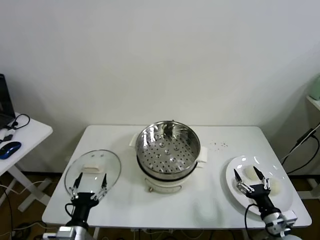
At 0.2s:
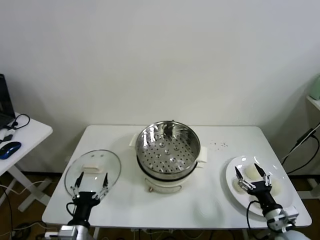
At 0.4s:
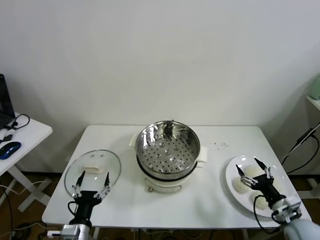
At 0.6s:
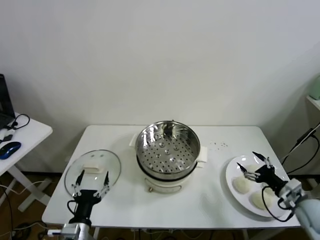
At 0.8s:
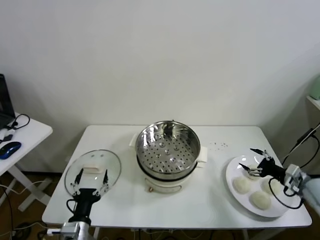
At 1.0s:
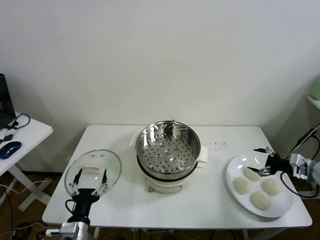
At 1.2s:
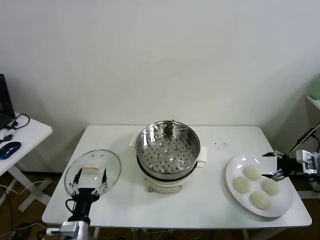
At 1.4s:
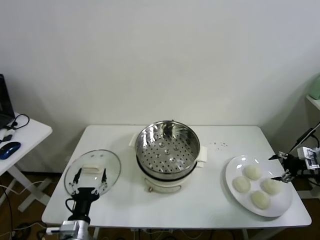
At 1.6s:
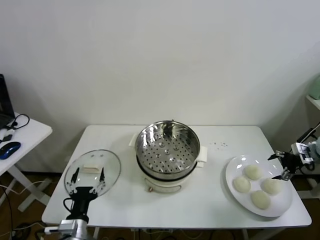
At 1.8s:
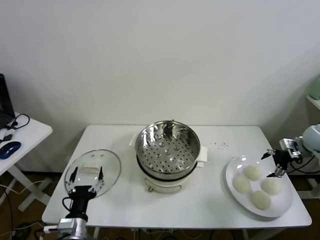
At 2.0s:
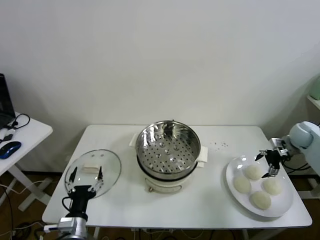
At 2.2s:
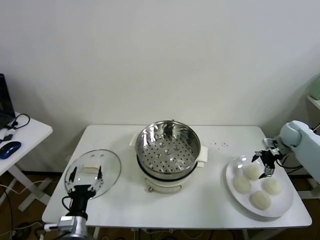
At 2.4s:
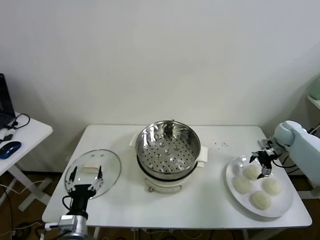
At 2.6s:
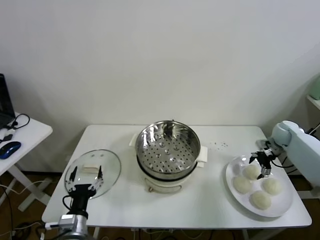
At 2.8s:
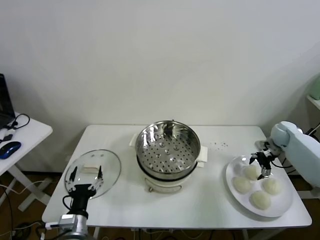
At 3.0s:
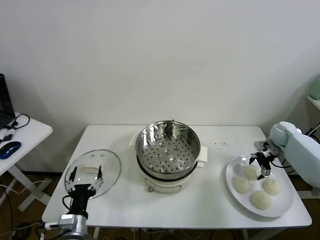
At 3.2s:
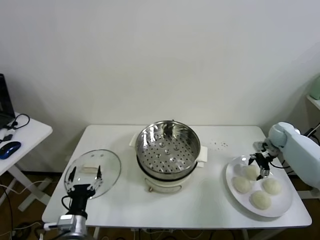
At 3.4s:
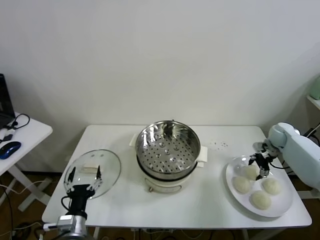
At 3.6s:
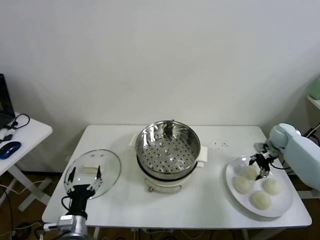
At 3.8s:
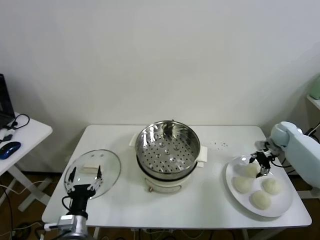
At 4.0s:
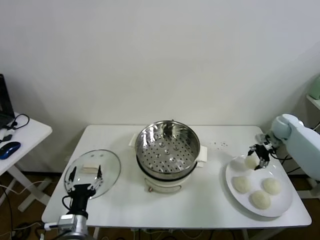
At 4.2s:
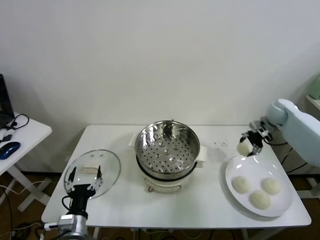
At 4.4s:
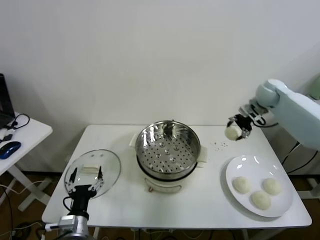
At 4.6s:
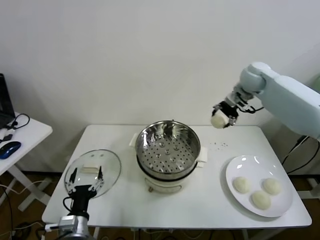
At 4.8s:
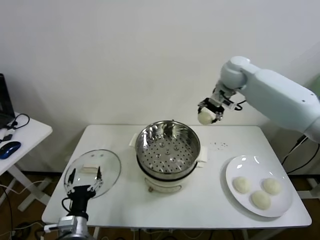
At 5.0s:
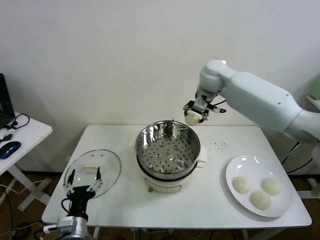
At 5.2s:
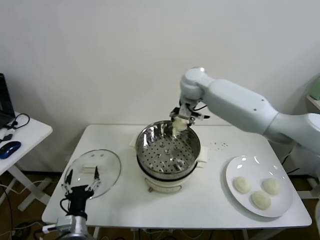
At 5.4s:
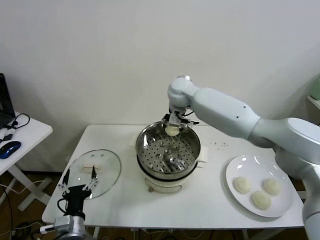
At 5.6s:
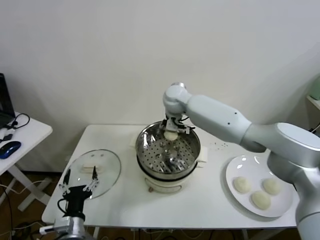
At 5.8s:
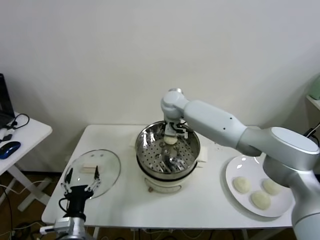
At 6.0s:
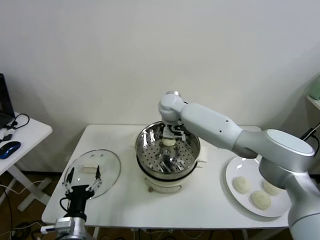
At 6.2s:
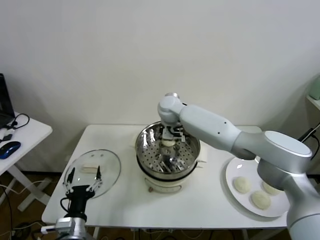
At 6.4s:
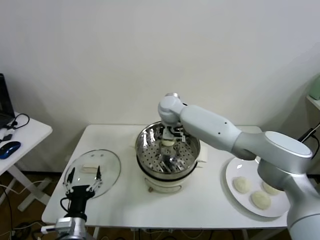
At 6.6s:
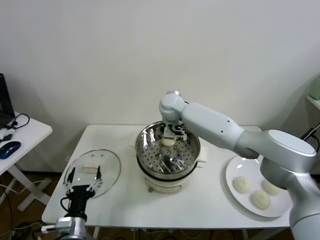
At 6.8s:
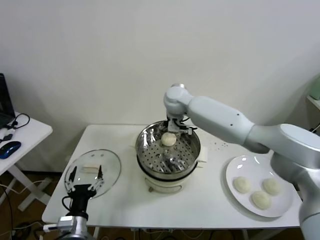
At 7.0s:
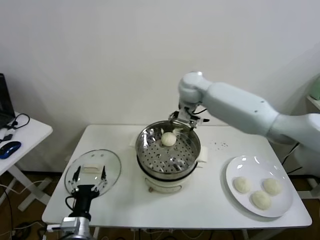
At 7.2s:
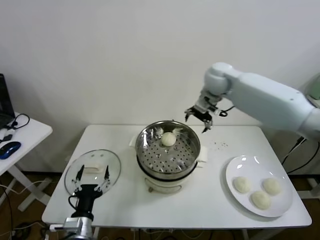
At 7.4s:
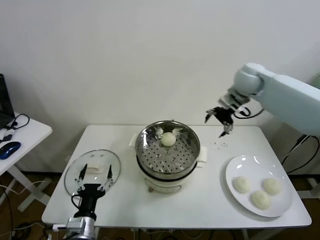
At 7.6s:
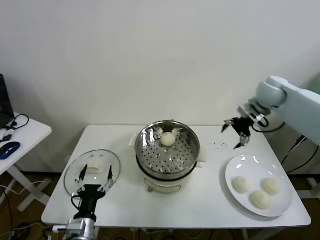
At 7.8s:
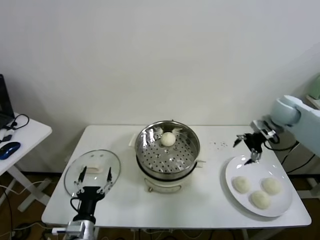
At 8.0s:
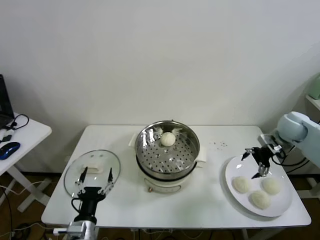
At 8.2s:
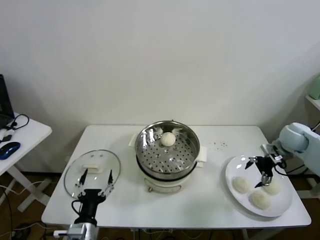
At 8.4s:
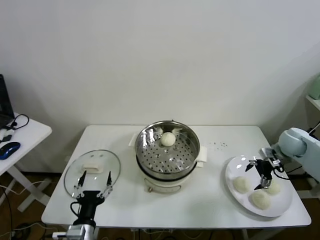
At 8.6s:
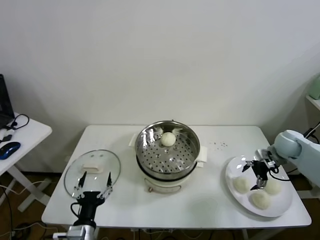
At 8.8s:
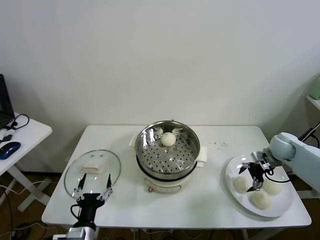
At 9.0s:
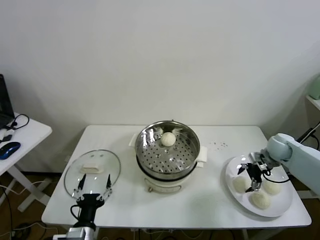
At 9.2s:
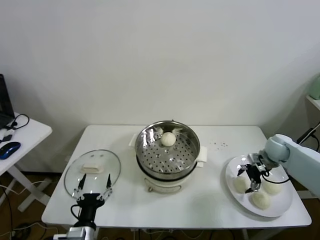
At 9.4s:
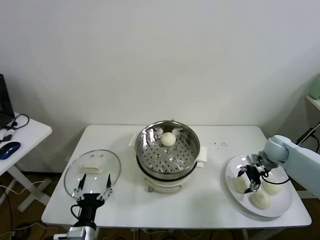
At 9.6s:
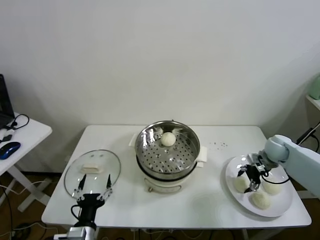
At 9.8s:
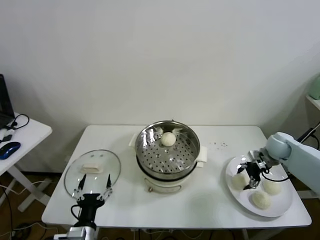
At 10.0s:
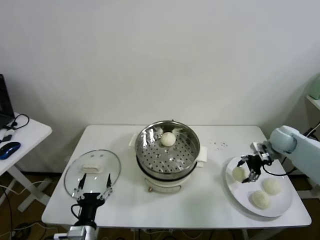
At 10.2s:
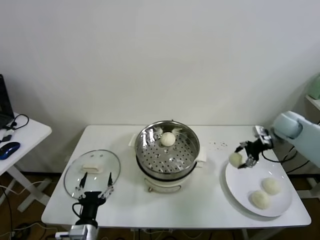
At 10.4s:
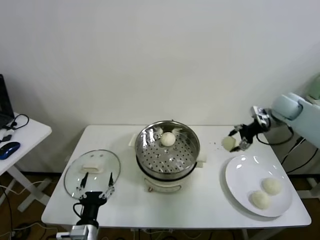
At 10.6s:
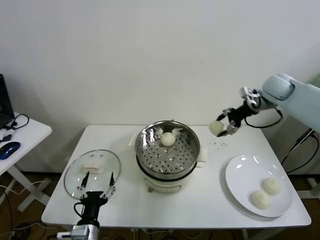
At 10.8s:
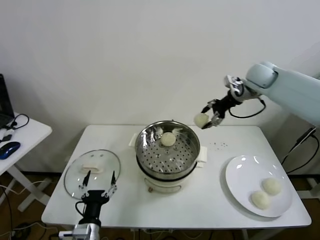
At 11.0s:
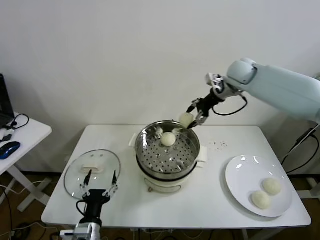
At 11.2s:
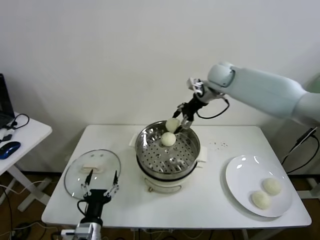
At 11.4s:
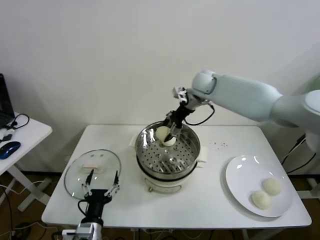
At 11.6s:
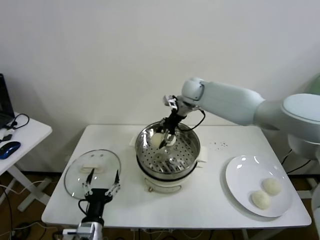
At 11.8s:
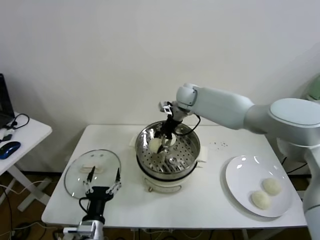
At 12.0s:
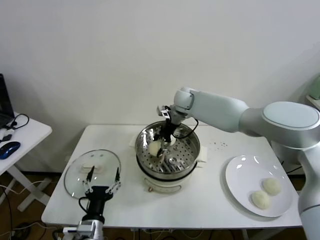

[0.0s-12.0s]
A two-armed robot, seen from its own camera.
Task of the whole recording: take steamed baozi put them in steamer.
Step, 0.0s to 3.4s: Grasp the baozi in the plate with right gripper.
Step, 3.6s to 6.4s: Place the baozi on the steamer with right gripper.
Step, 6.8s to 9.4s: Grasp the baozi in the plate with right gripper.
1.6s to 3.0s: The right gripper heads forward, to the left and downward, covering about 15 cm.
3.0s to 4.4s: The right gripper heads upward and to the left, covering roughly 25 cm, and closes up.
4.4s to 6.0s: The right gripper moves to the left, approximately 30 cm.
6.0s to 7.6s: The right gripper shifts roughly 35 cm to the right, and opens its fingers.
7.6s to 9.0s: The right gripper moves downward, about 20 cm.
9.0s to 10.4s: The right gripper moves upward and forward, about 20 cm, and closes up.
10.4s to 12.0s: The right gripper is displaced to the left by approximately 35 cm.

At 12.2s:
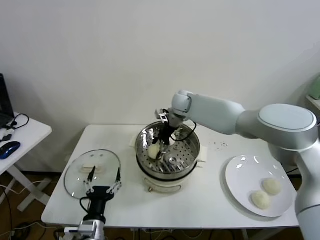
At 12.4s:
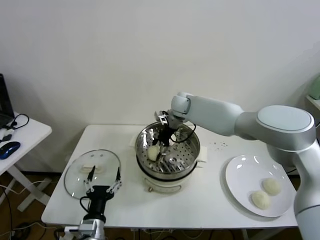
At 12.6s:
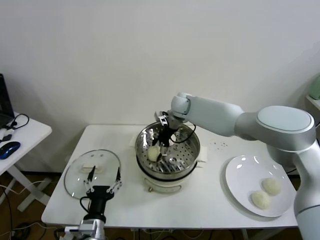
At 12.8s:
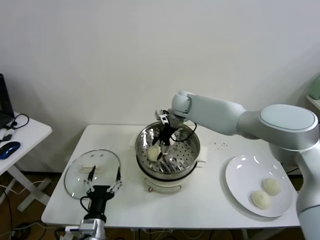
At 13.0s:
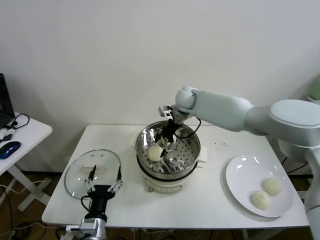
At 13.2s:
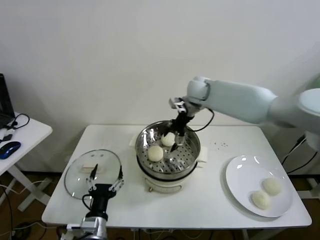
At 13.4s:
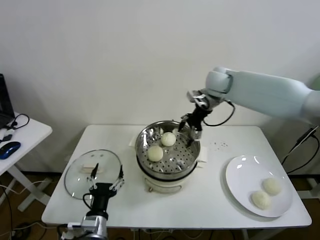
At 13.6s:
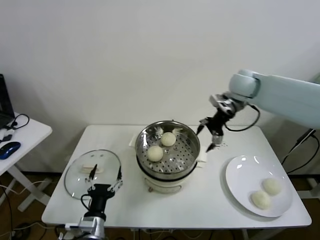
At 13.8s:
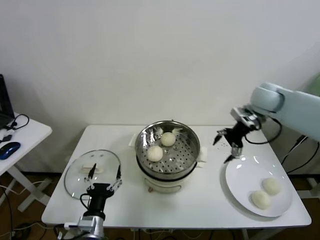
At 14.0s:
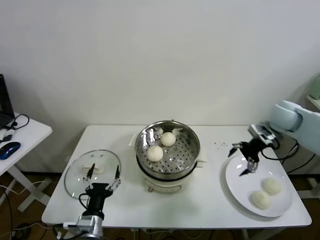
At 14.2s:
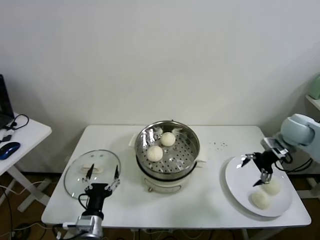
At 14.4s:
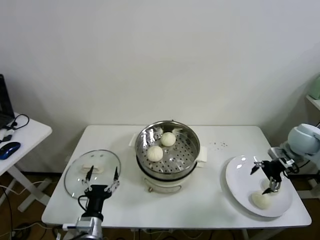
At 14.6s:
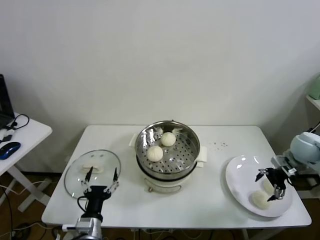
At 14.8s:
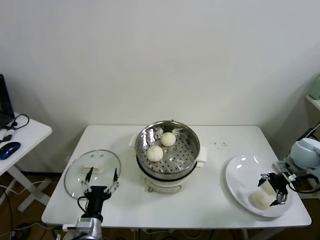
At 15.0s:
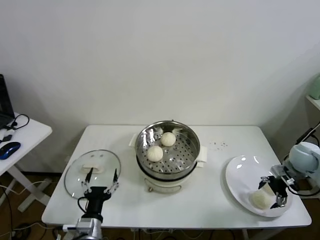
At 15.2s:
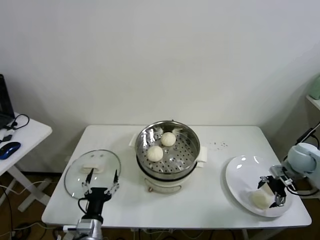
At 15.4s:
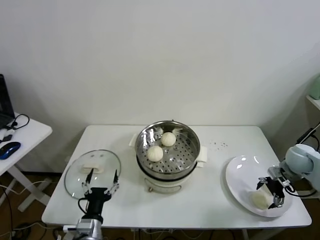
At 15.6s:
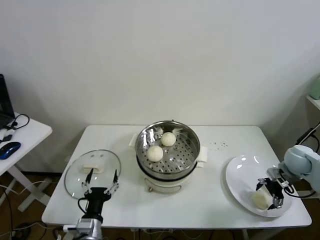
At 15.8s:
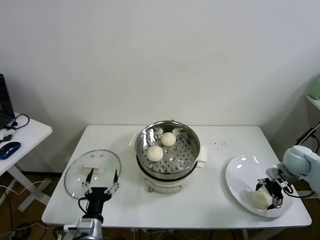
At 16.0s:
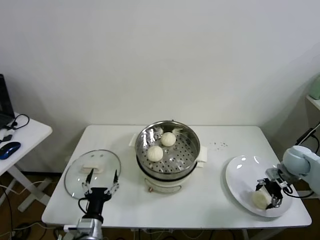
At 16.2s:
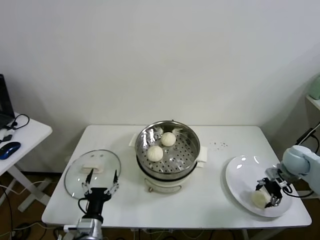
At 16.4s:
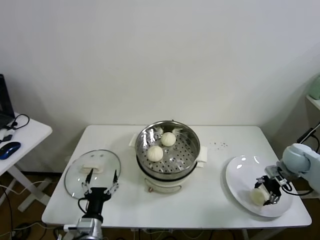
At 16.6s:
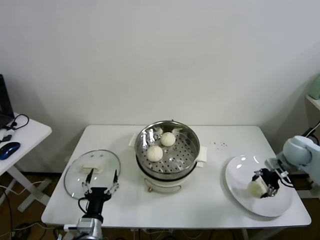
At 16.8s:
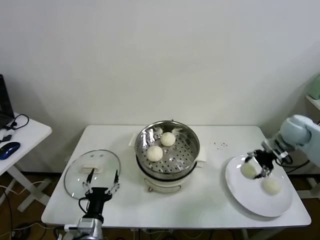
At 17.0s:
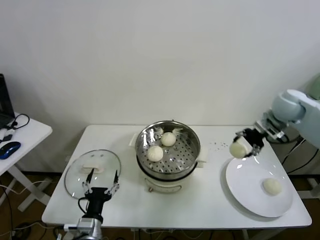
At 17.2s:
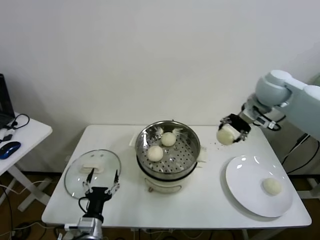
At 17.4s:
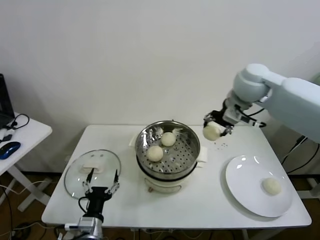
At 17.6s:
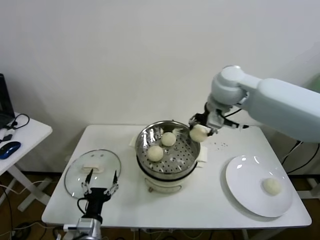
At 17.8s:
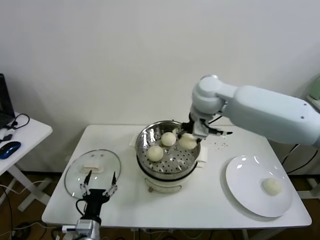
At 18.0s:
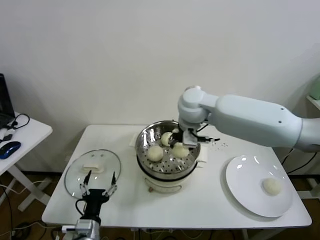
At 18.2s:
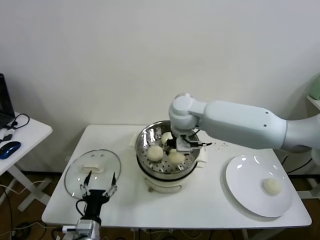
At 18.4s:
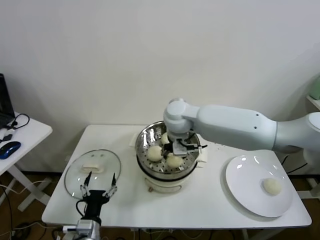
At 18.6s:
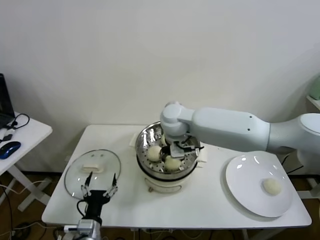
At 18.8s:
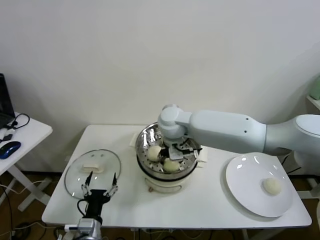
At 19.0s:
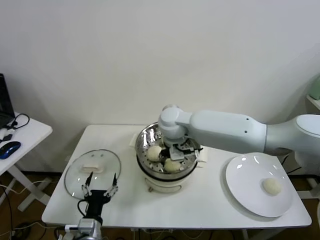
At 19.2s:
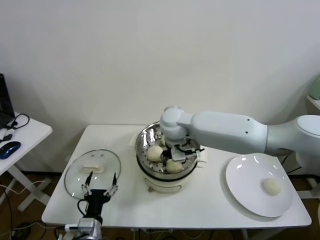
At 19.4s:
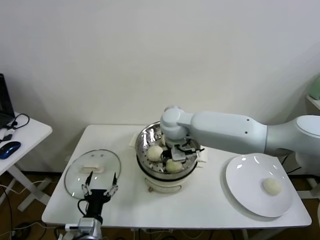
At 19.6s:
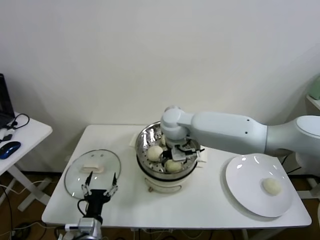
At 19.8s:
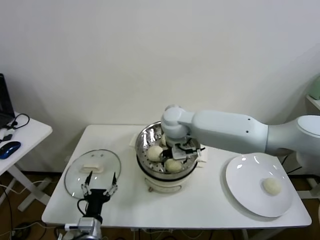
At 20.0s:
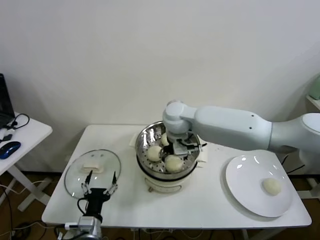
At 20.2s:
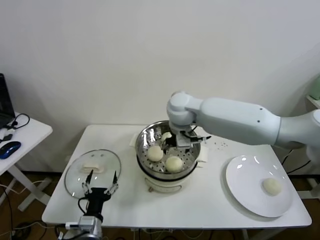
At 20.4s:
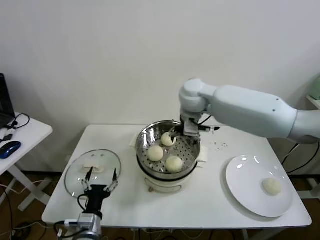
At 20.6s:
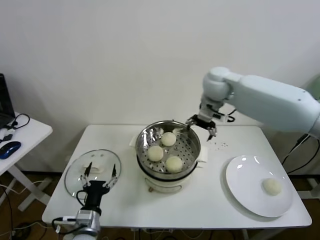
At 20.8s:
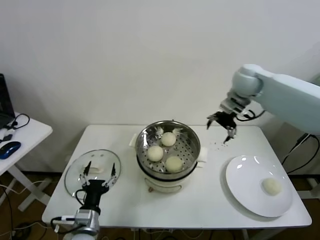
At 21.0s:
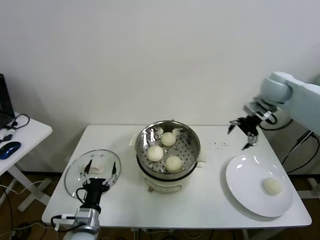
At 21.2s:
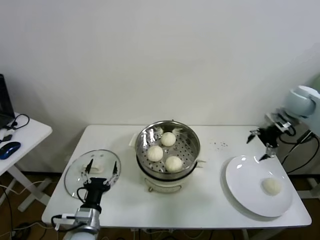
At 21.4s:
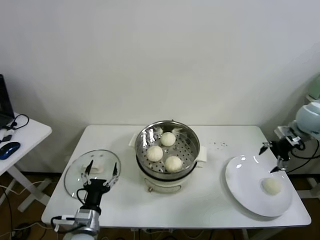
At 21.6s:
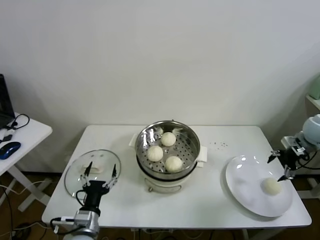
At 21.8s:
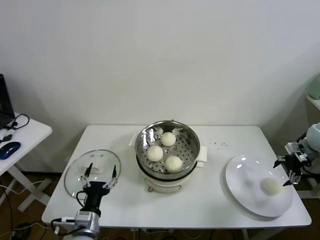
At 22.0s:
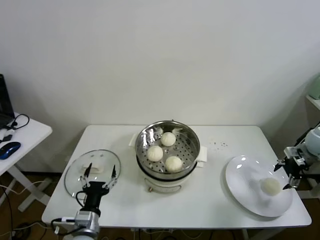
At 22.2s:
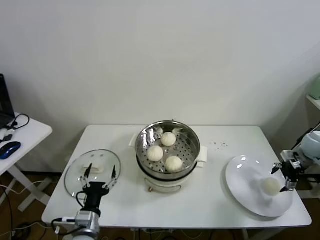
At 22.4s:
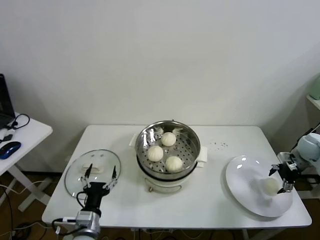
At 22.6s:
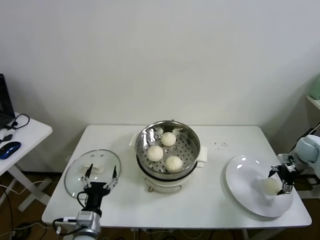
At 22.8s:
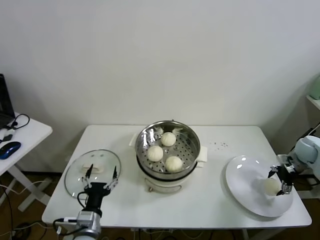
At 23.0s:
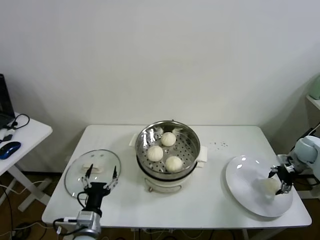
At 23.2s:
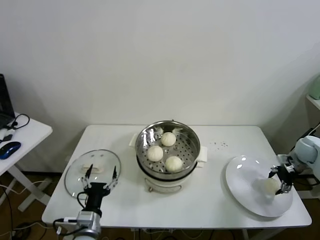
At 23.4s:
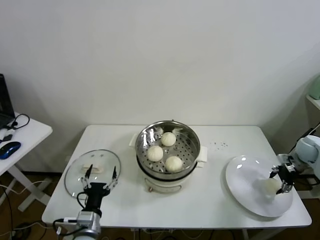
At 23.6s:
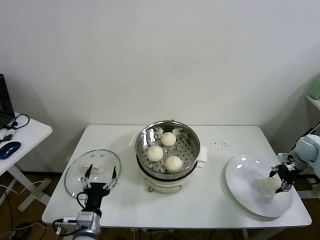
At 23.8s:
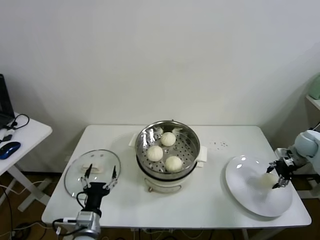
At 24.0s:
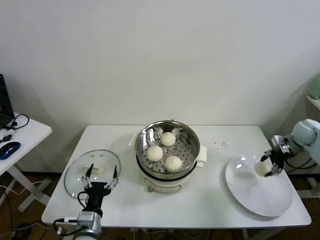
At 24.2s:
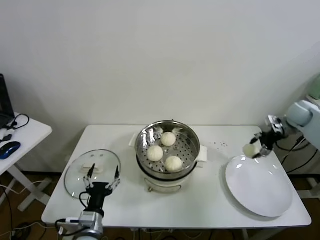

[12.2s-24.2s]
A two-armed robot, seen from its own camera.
Task of the whole recording: take steamed baozi put them in steamer.
Step, 13.0s to 16.2s: Grasp the baozi in the plate with right gripper.
Step, 16.4s to 19.8s: Place the baozi on the steamer with right gripper.
Step, 20.0s to 23.2s: Grasp the baozi in the plate with right gripper.
12.2s to 13.8s: The right gripper is displaced to the right by roughly 25 cm, and opens.
13.8s to 15.2s: The right gripper heads downward, to the right and backward, covering some 25 cm.
15.2s to 16.6s: The right gripper closes up.
16.6s to 18.2s: The right gripper travels to the left by approximately 40 cm.
18.2s to 19.8s: The right gripper opens up.
19.8s to 21.2s: The right gripper heads to the right, covering about 40 cm.
21.2s to 22.6s: The right gripper heads downward and to the right, covering about 20 cm.
22.6s to 24.2s: The right gripper travels upward and forward by about 10 cm, and closes.
